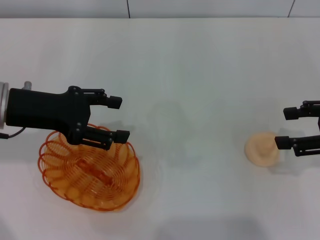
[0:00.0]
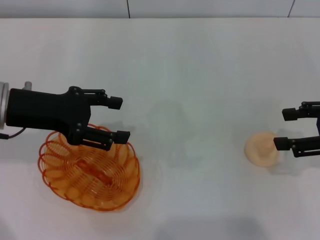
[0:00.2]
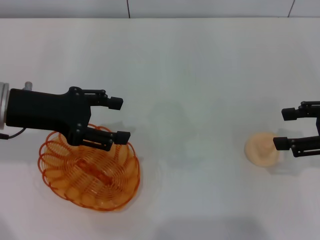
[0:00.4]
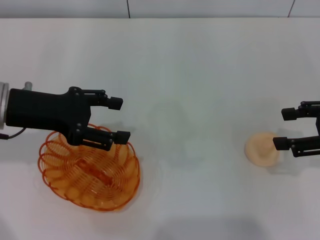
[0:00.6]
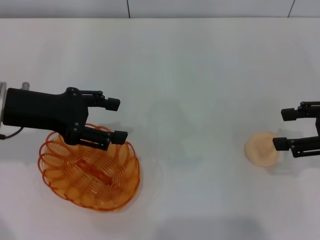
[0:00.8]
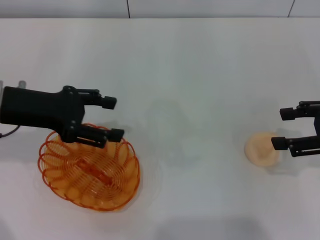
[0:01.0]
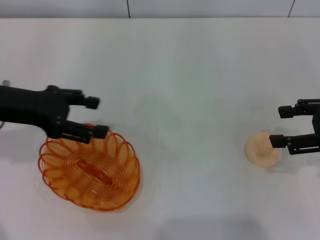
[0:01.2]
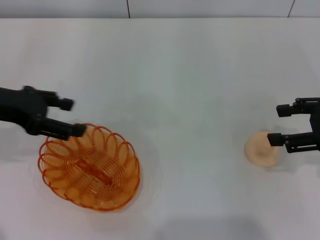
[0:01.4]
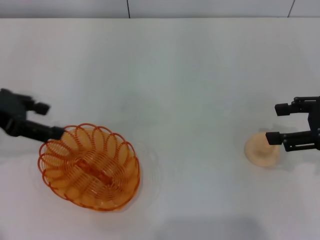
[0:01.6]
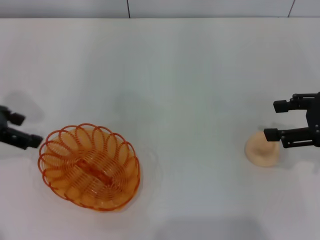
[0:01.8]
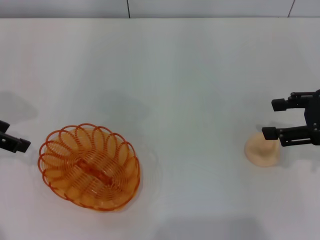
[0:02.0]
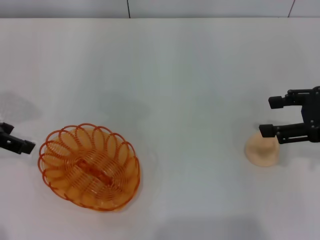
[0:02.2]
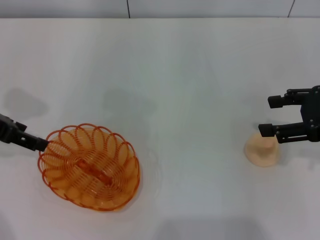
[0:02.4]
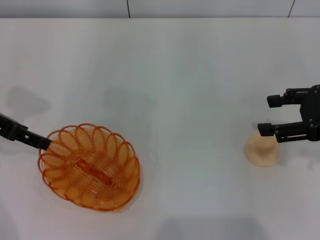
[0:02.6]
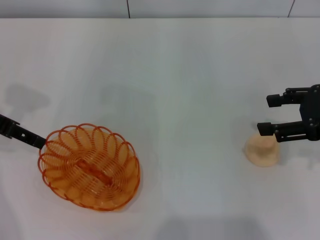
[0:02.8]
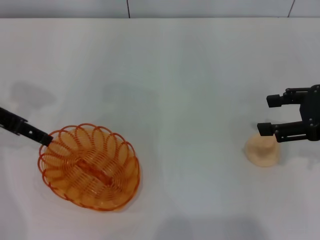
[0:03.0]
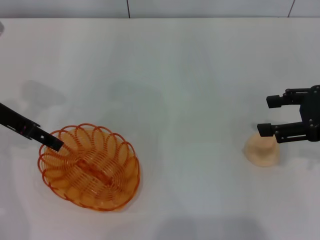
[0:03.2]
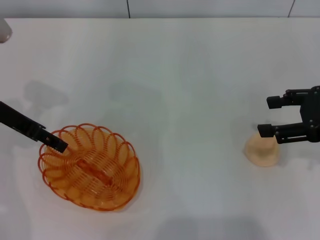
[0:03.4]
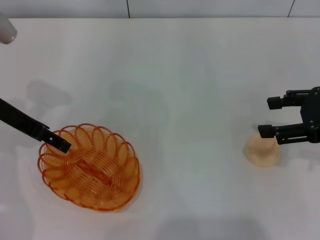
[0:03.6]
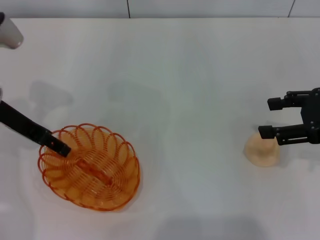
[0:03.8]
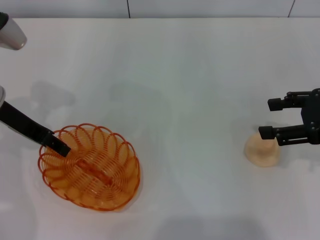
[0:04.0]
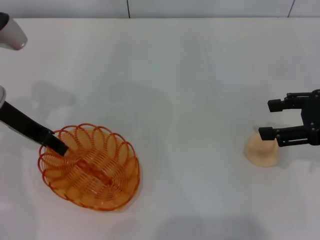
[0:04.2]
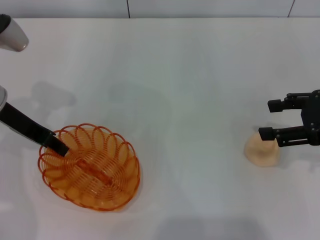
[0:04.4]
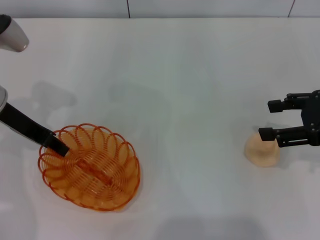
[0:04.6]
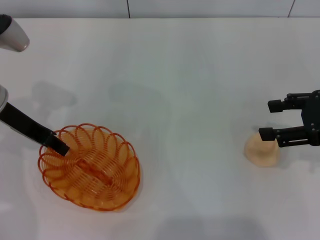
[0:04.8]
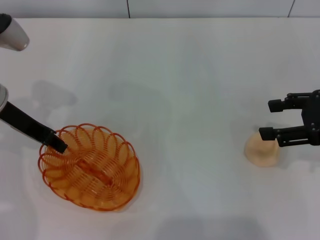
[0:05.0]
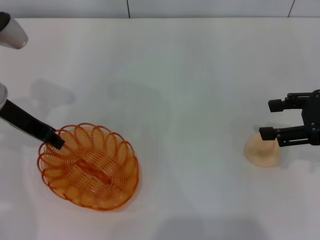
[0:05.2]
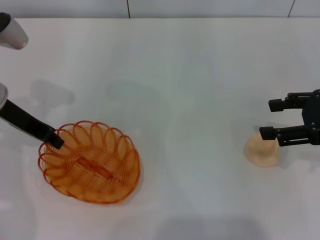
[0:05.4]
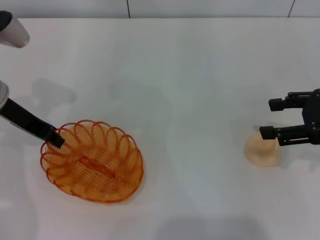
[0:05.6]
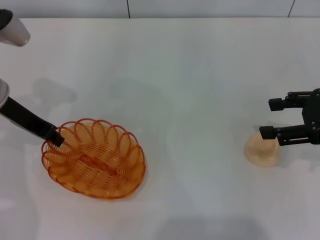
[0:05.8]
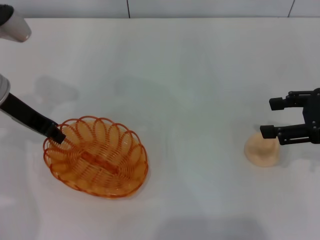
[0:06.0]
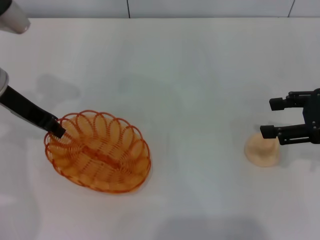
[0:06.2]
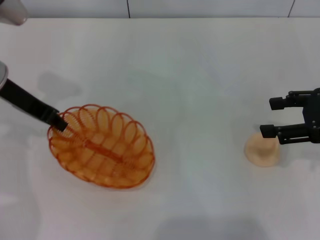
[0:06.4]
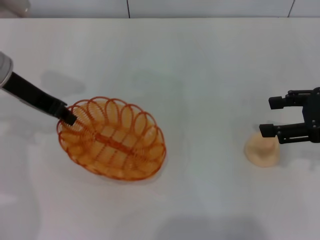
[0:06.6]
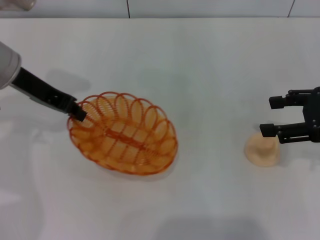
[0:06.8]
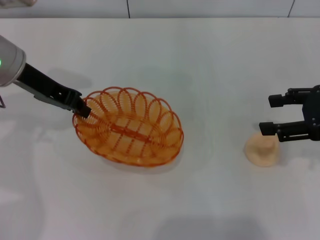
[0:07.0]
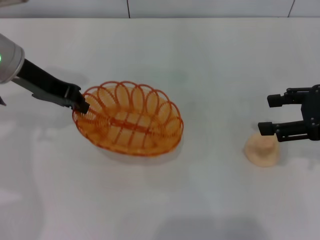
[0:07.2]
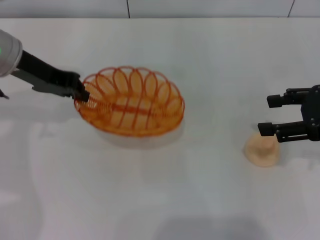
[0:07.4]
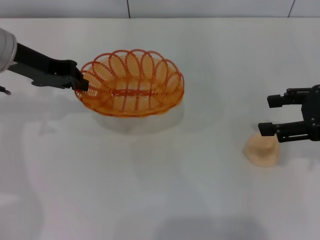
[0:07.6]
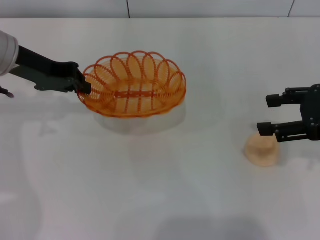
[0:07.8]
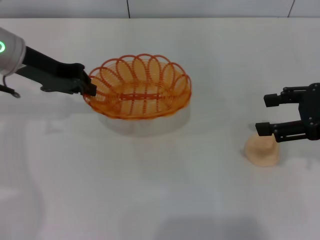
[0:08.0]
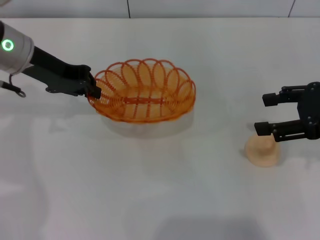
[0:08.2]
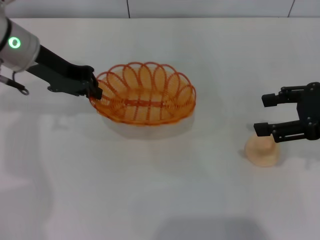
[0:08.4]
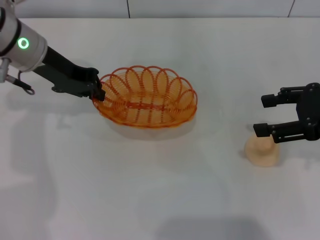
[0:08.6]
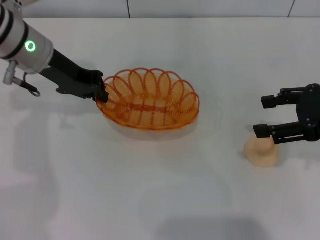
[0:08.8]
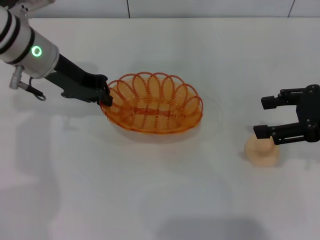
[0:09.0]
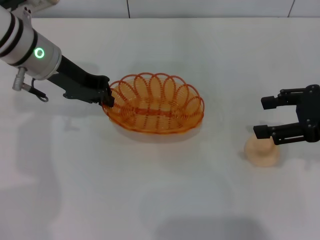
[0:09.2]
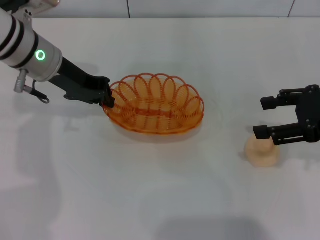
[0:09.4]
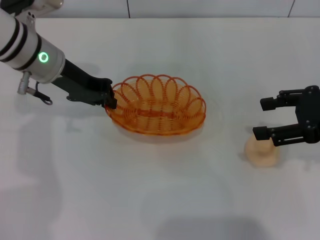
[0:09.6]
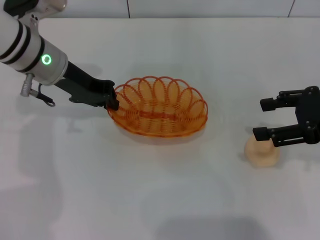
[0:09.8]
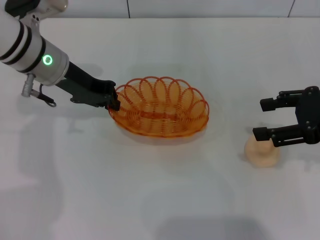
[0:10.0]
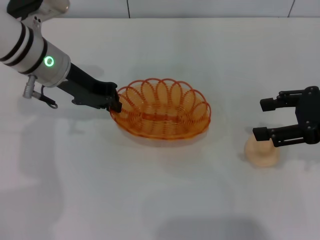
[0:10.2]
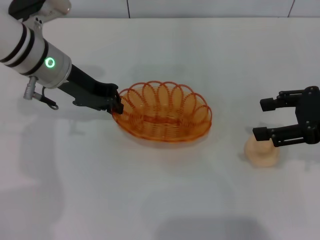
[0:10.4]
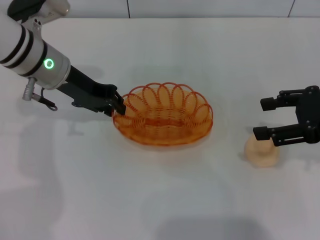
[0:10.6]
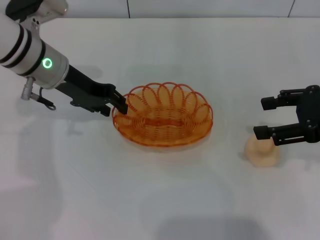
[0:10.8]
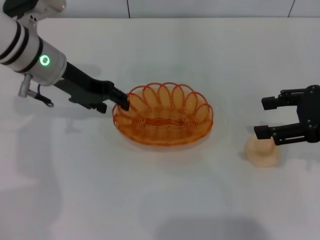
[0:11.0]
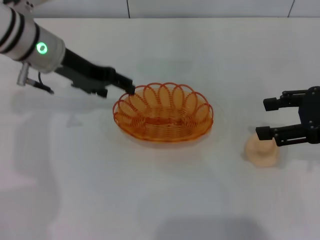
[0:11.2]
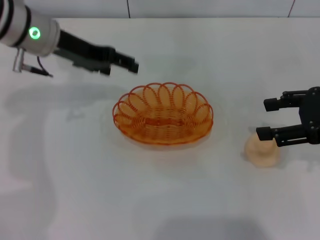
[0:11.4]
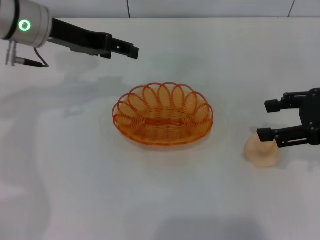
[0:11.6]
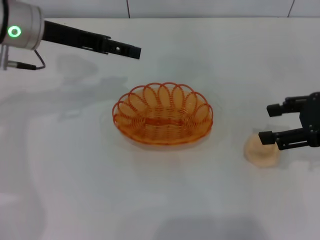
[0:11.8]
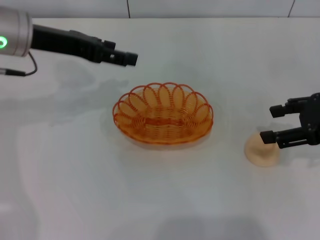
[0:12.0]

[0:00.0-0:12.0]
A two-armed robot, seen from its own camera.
Step, 0.0 to 6.8 s: Pick up the basket with the left gripper.
Step, 7.0 to 12.0 s: Place the basket in the center of view with the left gripper.
0.0 to 1.6 s: The left gripper is displaced to the left by some 5 cm.
3.0 to 4.4 s: The left gripper moves some 5 cm, and closes.
4.4 to 6.0 s: The left gripper closes up.
7.6 to 9.0 s: The left gripper changes place by roughly 5 cm.
9.0 to 10.4 s: The grippers stay close to where they were, moving slightly.
10.4 to 12.0 s: The left gripper heads upward, covering some 5 cm, and opens up.

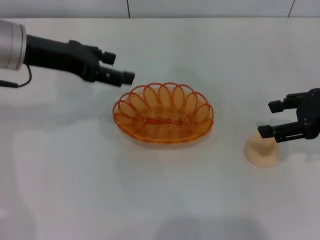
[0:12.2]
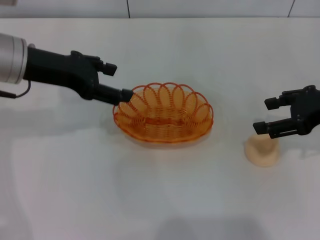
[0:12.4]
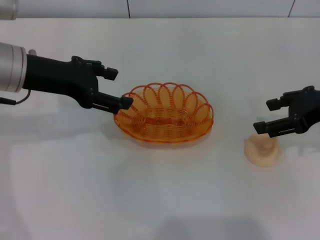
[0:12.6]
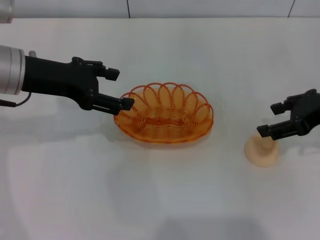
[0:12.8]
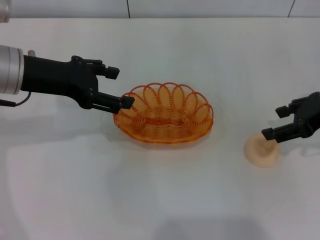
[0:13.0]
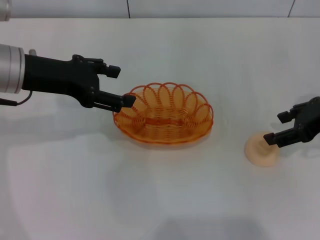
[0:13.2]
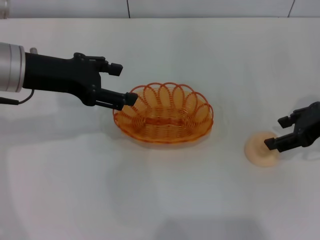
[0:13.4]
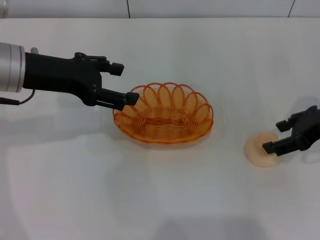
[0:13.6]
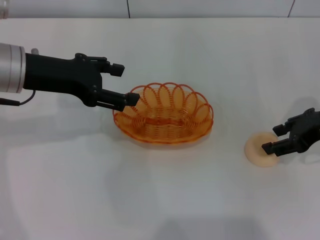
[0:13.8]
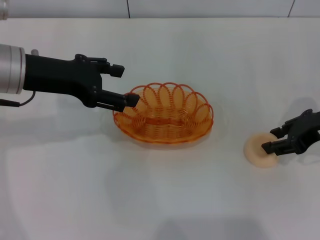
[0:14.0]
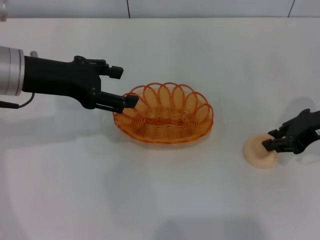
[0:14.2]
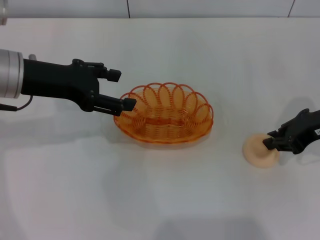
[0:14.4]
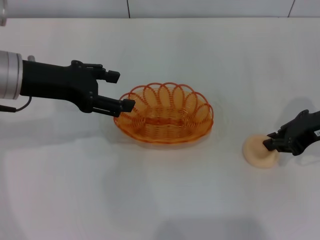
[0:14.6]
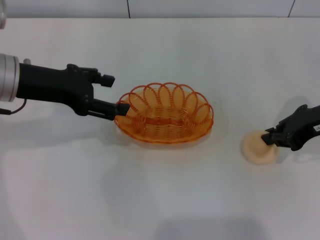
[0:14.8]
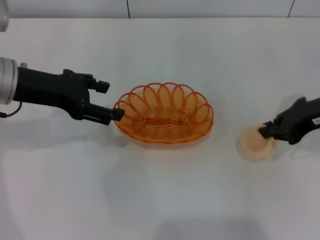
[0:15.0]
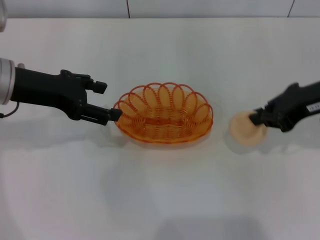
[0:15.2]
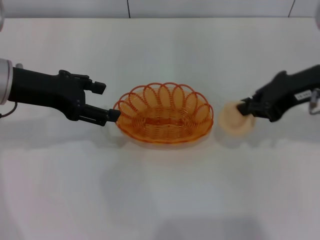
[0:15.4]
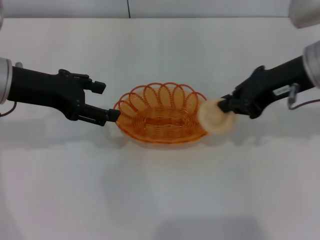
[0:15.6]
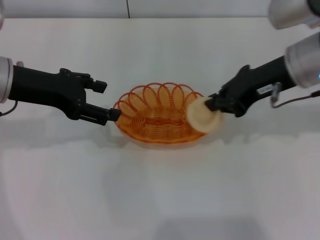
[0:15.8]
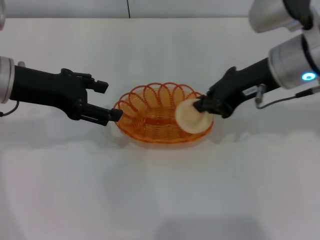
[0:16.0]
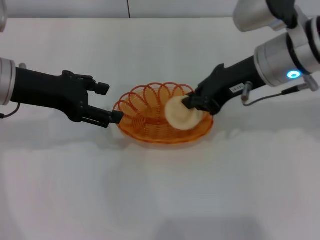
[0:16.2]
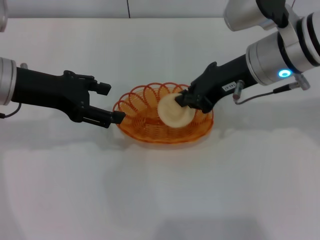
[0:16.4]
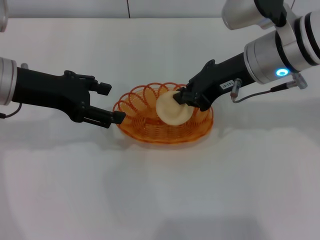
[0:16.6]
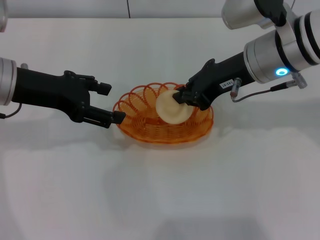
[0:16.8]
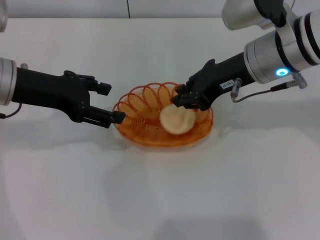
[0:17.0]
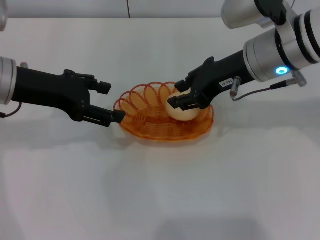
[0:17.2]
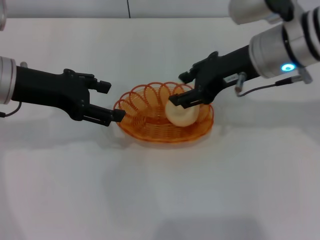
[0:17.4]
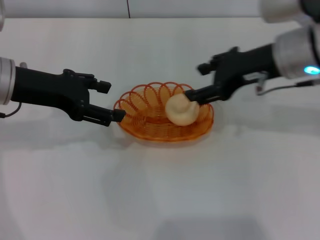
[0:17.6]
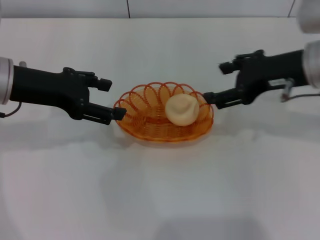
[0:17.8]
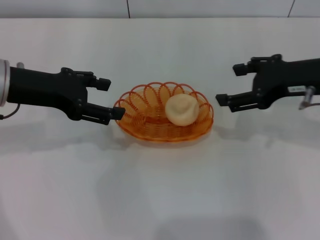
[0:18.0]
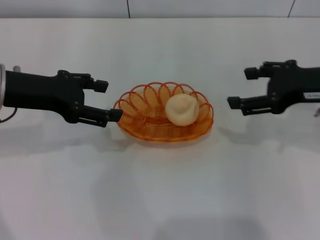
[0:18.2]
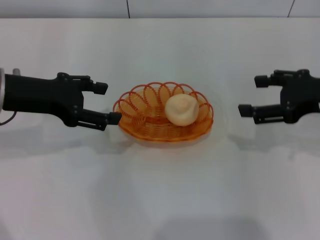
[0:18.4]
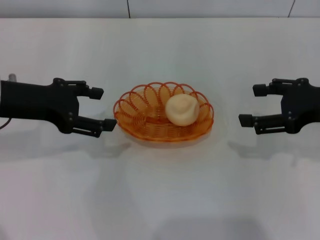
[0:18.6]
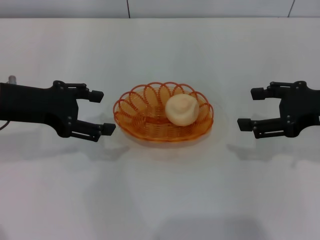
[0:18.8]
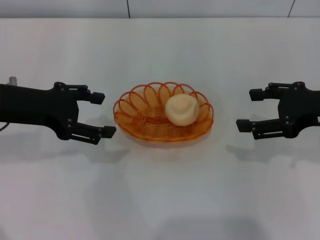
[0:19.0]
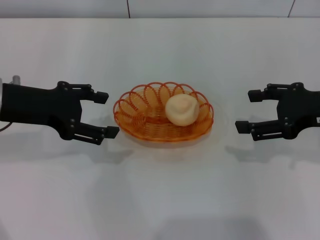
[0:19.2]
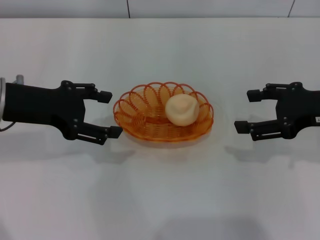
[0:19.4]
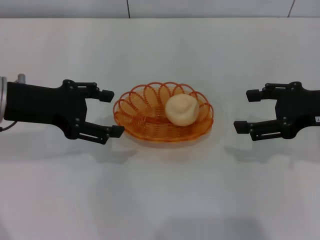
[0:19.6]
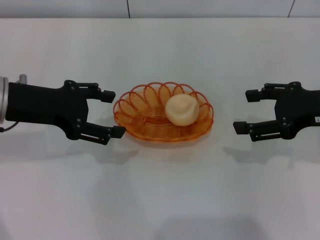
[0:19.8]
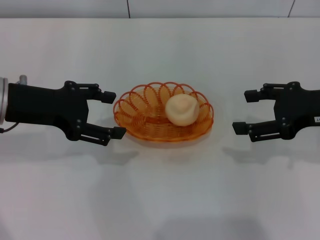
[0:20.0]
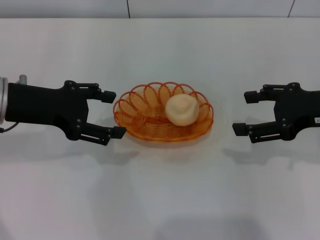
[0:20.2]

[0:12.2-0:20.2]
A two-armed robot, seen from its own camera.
Step, 12.2 to 15.6 s: Pick up the egg yolk pastry with the right gripper.
Step, 15.8 to 18.4 s: Place the egg yolk pastry into the basket with the right gripper.
12.2 to 13.8 s: The grippers move only a little.
13.8 to 15.4 s: The right gripper travels upward and to the left by about 10 cm, and closes its fingers.
15.4 to 17.0 s: The right gripper is displaced to the left by approximately 10 cm.
17.0 to 18.6 s: The right gripper moves to the right and backward, some 15 cm, and opens.
18.6 to 20.2 s: The grippers move only a little.

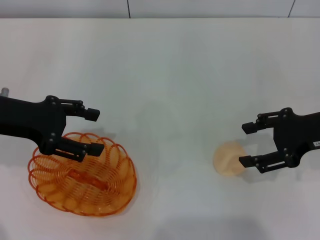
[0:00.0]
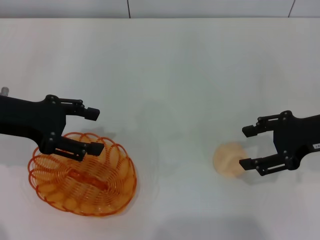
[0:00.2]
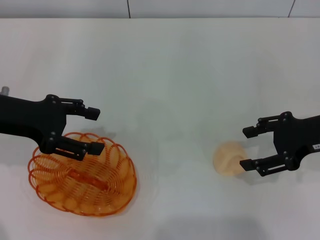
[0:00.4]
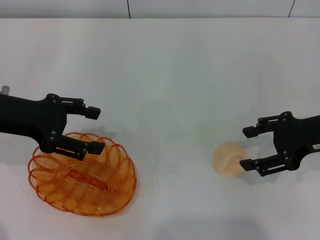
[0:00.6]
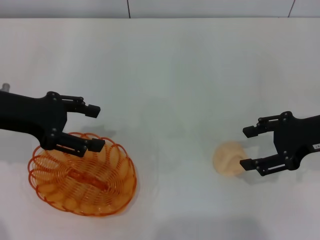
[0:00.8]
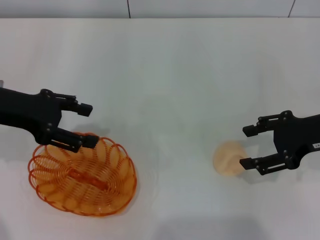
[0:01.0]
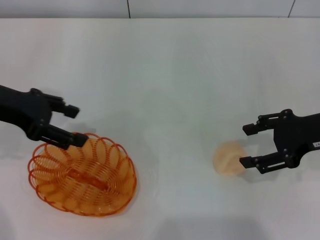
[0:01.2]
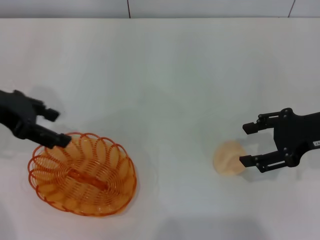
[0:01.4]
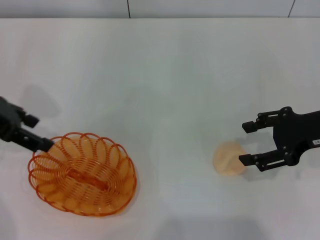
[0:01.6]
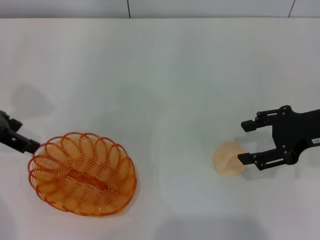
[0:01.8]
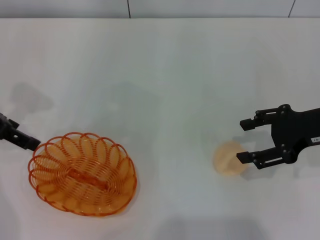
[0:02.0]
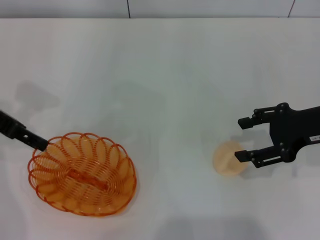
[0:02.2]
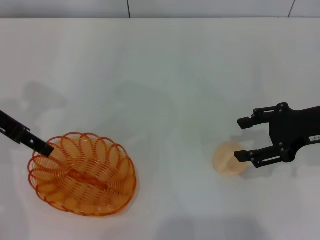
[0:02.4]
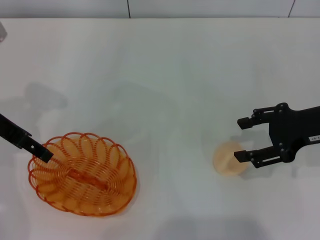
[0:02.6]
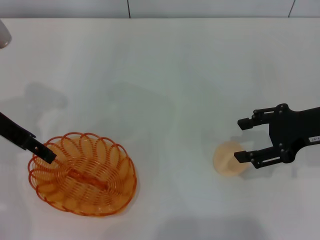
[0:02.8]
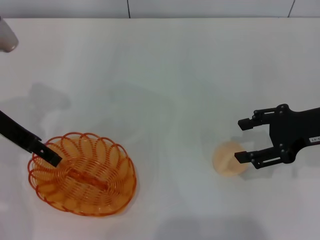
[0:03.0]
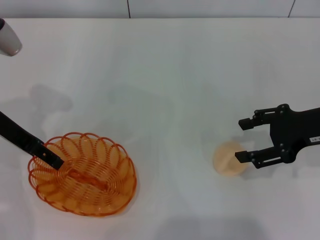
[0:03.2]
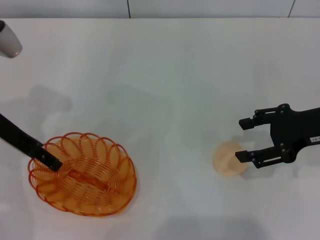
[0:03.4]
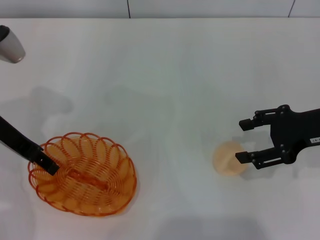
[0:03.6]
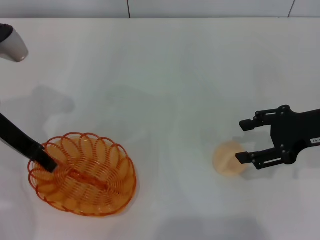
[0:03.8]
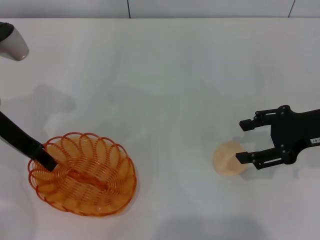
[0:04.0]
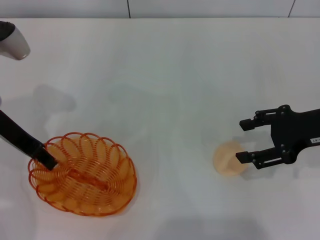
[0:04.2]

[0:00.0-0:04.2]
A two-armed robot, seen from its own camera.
2.8 to 4.2 s: The left gripper closes.
